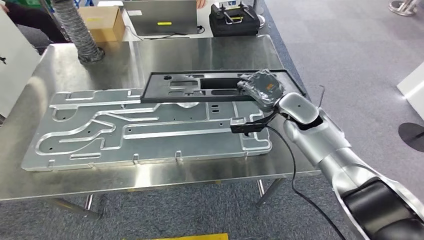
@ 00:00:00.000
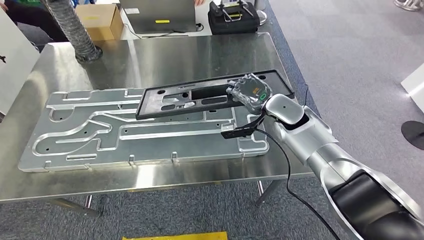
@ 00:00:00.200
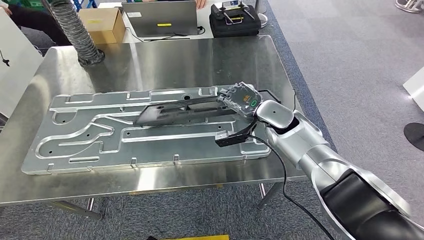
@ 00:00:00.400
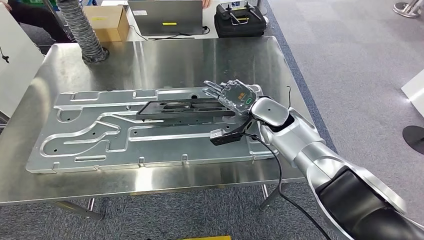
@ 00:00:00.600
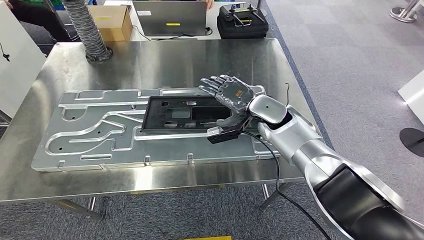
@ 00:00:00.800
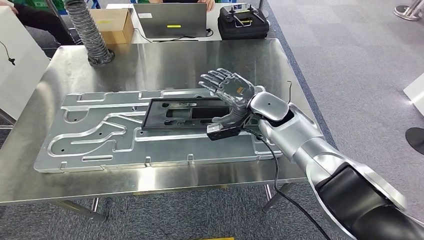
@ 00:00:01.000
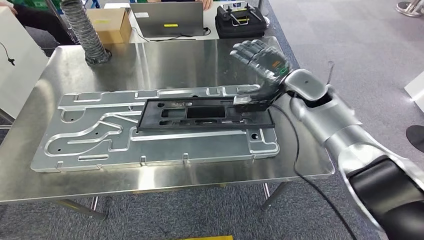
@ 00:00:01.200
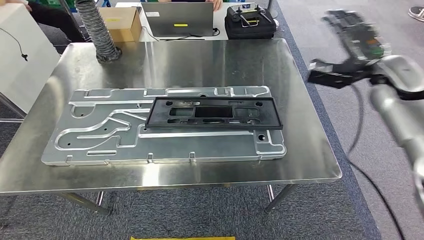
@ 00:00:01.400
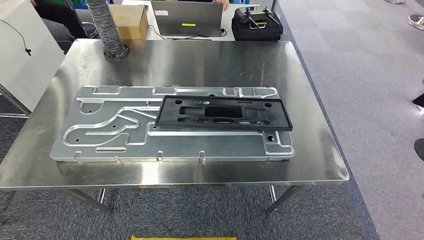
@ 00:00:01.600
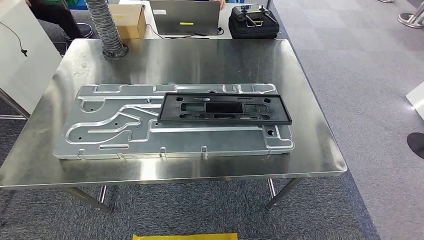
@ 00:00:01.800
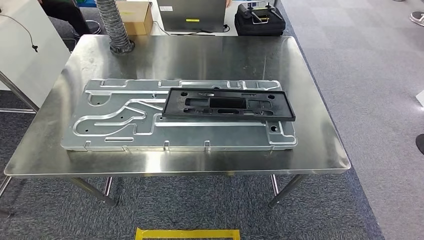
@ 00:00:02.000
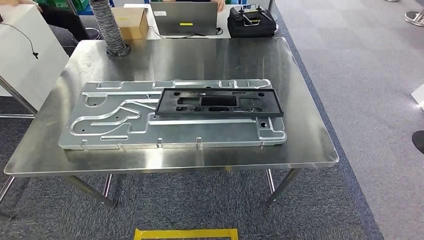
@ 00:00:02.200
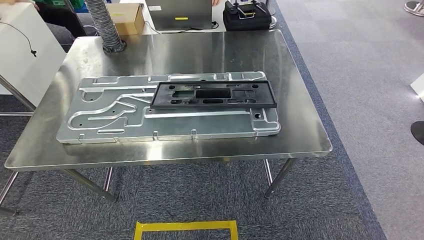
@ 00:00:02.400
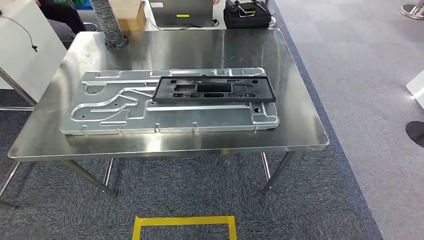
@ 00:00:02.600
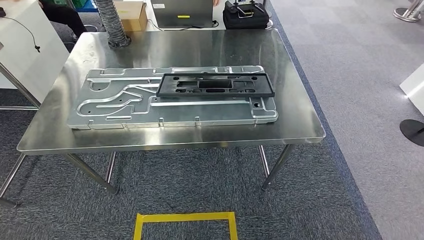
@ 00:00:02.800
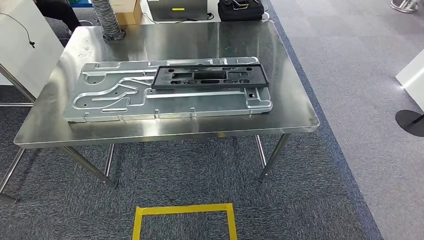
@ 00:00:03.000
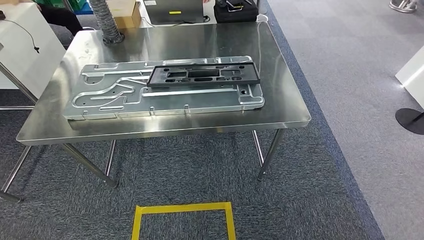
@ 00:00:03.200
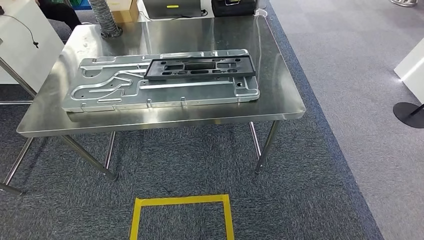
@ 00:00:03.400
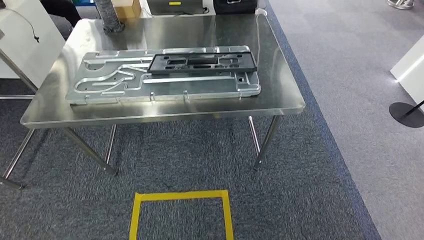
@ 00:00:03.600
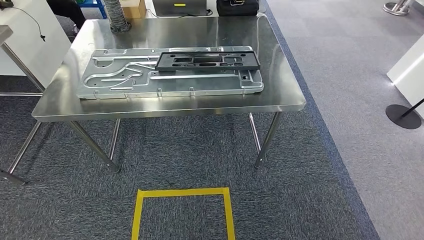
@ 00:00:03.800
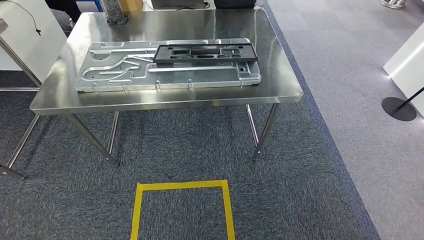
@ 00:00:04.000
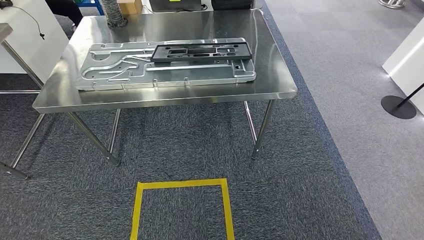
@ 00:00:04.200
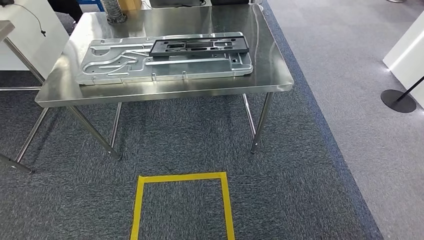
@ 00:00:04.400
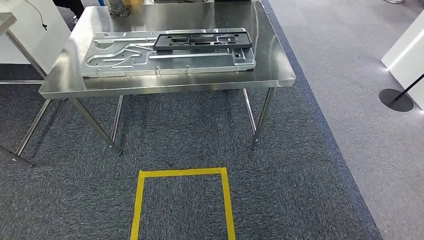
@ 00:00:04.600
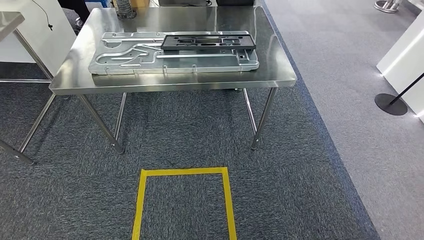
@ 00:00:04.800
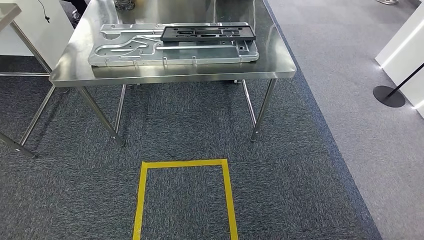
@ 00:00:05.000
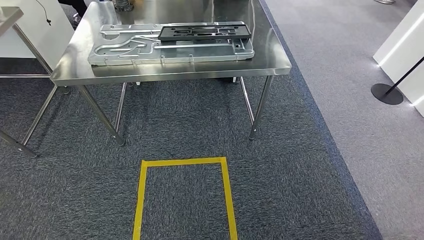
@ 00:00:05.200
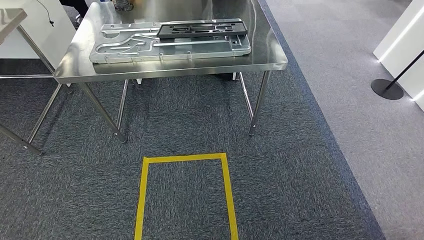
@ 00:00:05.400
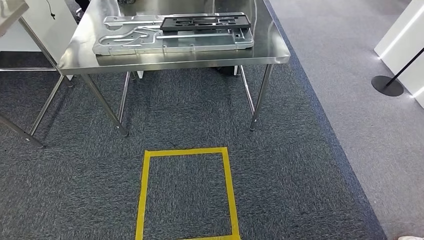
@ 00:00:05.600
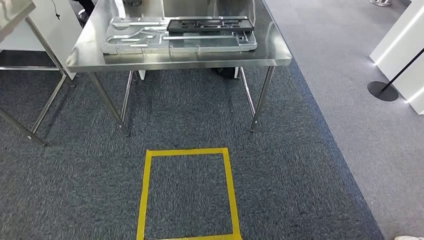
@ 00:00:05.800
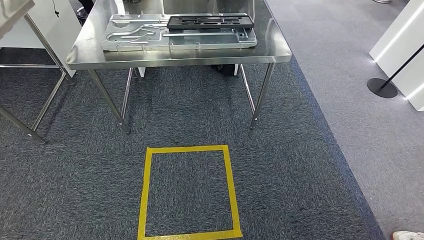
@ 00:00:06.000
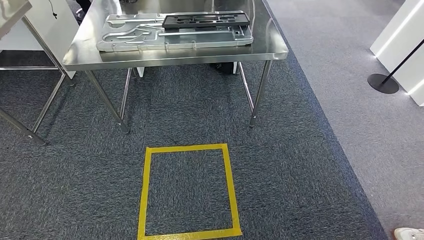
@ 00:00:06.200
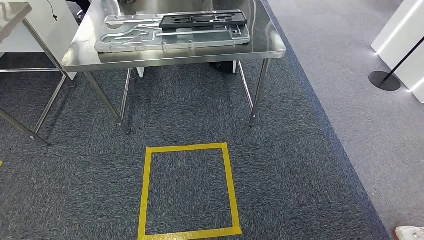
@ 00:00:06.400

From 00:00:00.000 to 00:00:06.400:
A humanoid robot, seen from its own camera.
Step, from 00:00:00.000 to 00:00:02.600: Insert the large material into the corresponding slot on the workbench.
Step, from 00:00:03.000 to 00:00:06.400: Move to the initial position of the shelf.
